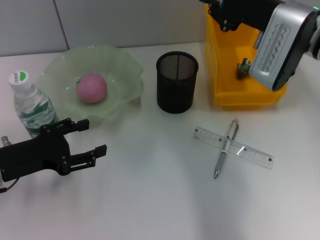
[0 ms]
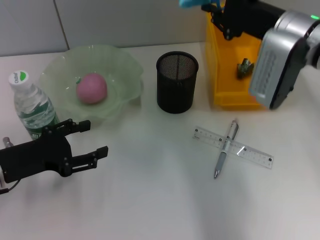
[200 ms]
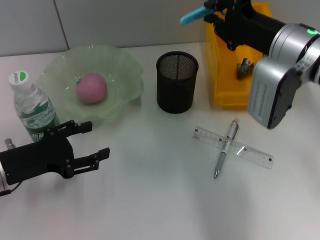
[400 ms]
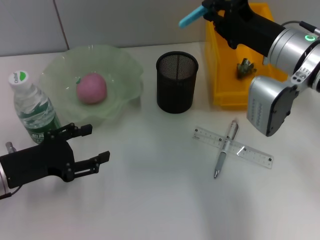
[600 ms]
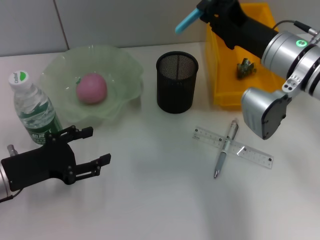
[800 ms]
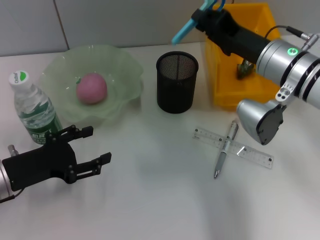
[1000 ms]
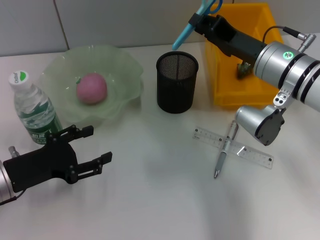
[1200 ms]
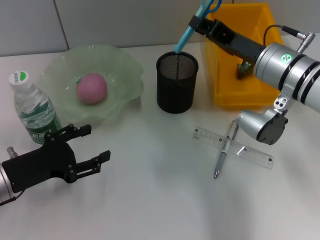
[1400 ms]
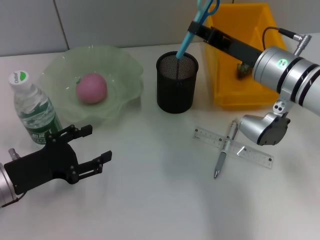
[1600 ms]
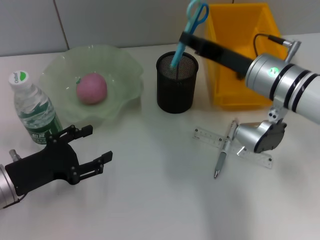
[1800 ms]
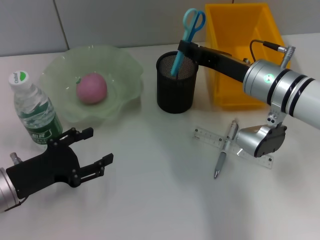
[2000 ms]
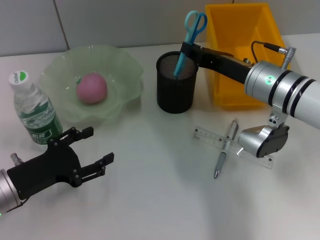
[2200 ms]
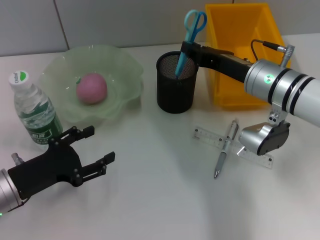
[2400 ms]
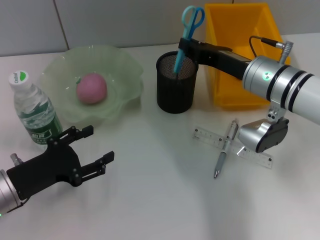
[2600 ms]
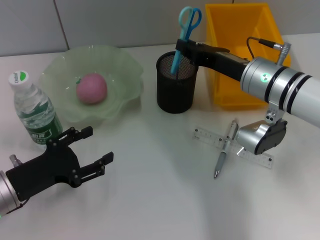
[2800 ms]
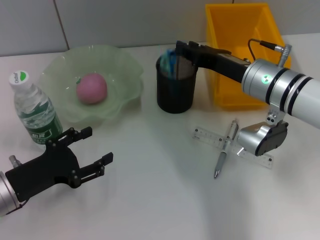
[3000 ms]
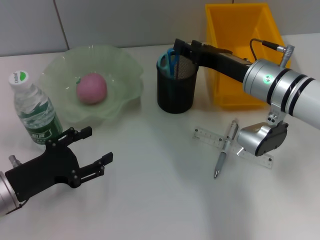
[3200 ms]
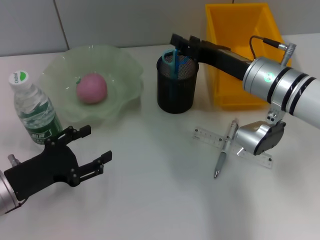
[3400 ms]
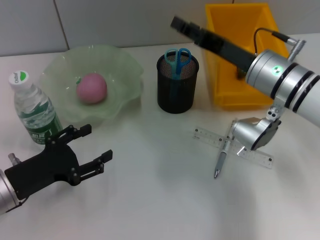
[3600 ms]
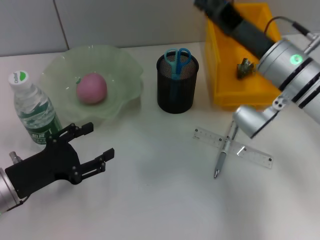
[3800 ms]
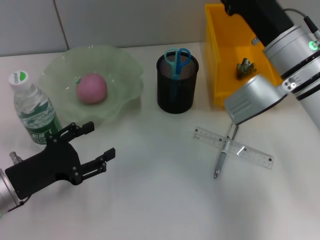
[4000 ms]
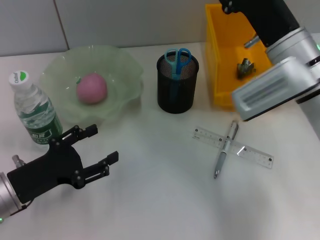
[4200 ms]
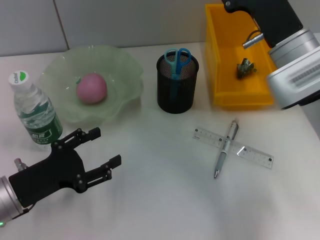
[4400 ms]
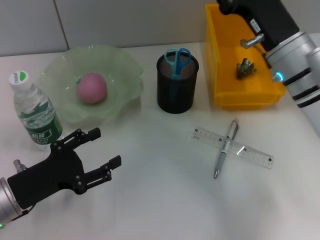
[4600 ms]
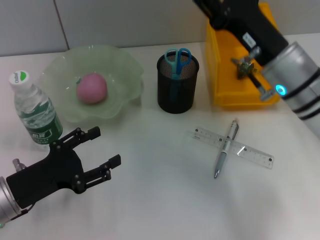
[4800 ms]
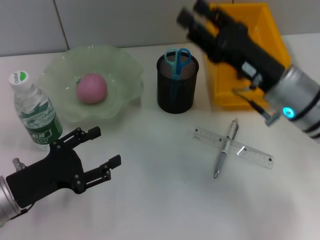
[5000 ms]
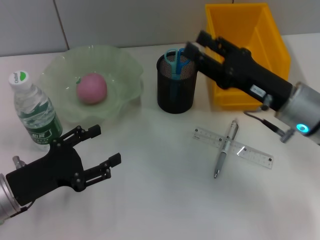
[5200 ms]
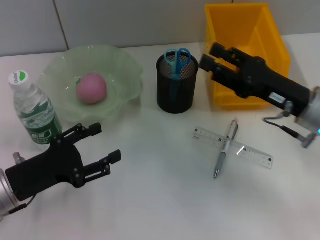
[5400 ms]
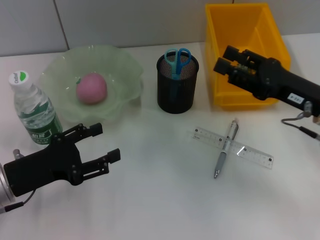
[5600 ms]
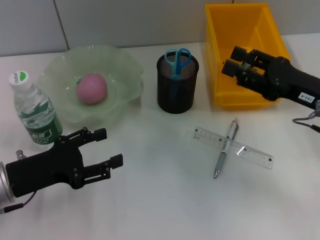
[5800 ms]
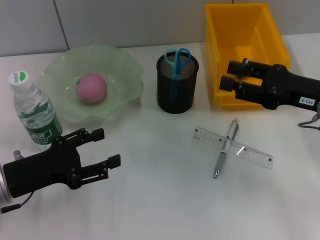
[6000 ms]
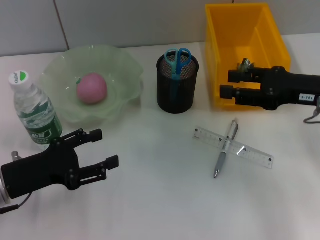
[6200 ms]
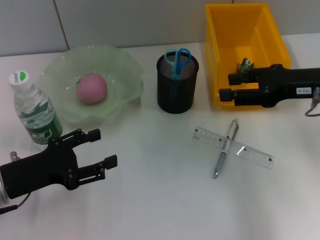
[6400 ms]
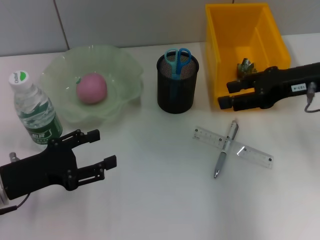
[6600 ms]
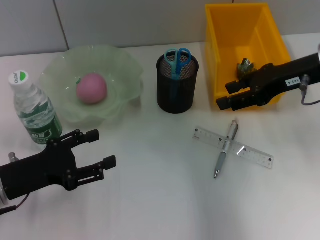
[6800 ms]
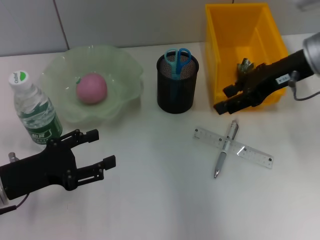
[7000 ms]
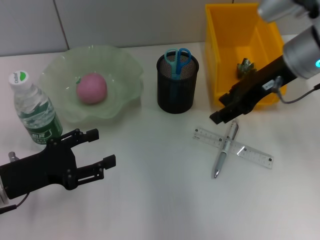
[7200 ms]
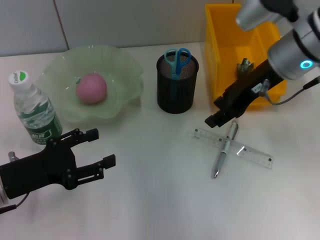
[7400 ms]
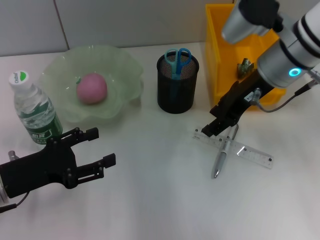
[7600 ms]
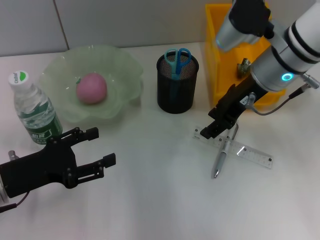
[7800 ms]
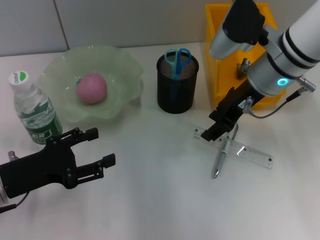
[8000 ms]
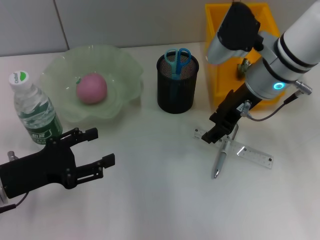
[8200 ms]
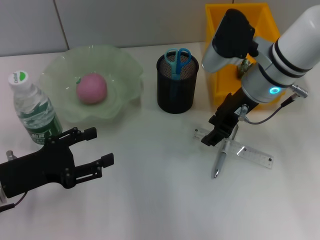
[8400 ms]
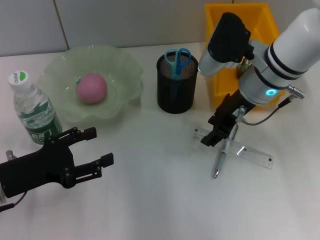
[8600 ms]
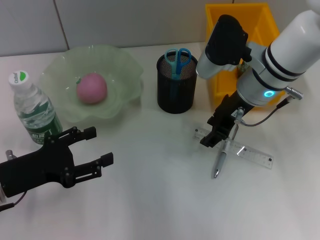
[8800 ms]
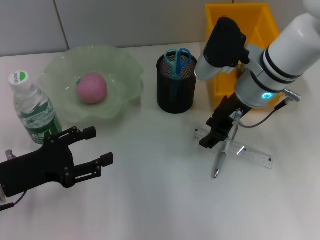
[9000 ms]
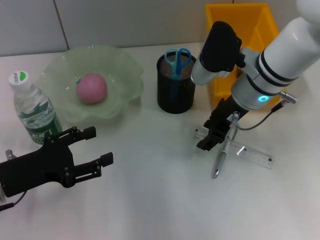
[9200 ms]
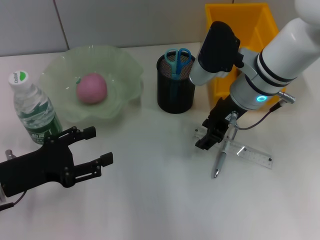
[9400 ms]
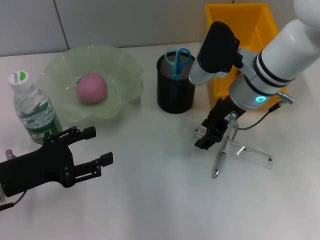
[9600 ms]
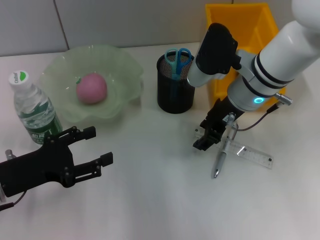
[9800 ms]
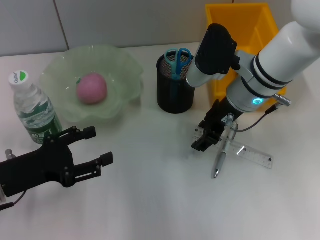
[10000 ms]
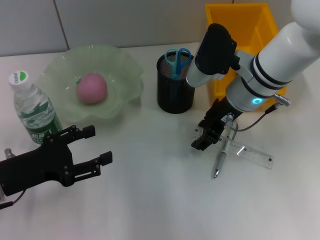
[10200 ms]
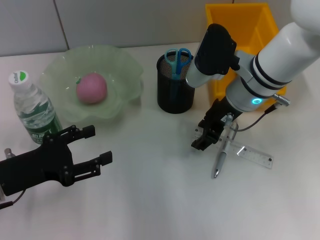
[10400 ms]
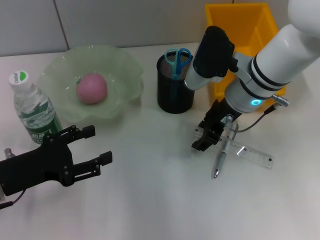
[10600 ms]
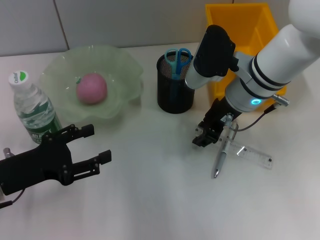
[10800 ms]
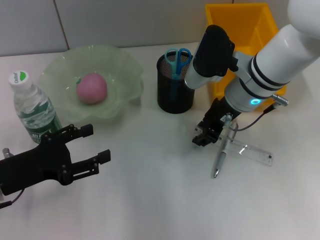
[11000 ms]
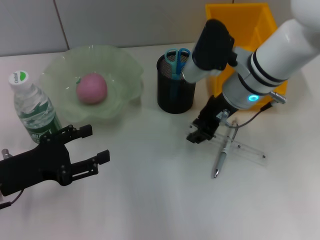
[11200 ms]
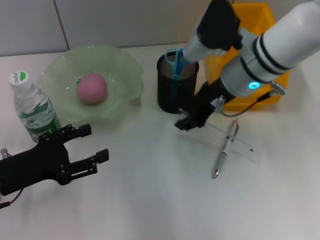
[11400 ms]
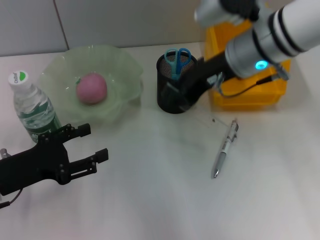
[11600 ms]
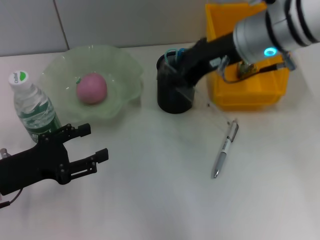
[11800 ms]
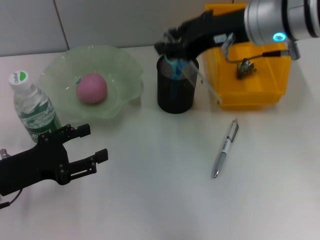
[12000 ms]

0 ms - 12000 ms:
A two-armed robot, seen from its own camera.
Step, 0 ms - 3000 ms: Place the blue scissors into the pen holder with the right hand.
Step, 3200 ms - 10000 ms: Grab the ruler with the right hand.
0 ms - 1600 ms: The right gripper heads downward, covering some 5 cm.
1600 ms - 3000 ms: The grippers move only a little.
3000 ms - 4400 ms: The right gripper opens up.
4400 ms - 6000 ms: The right gripper heads to the right, covering roughly 10 cm.
6000 ms - 7600 ms: The right gripper moves to the left, forward and upward, some 15 cm.
7600 ms - 9000 ms: The right gripper changes place by some 5 cm.
9000 ms - 10400 ms: The grippers stay close to where they were, moving slightly.
10400 ms - 12000 ms: The right gripper travels upward by about 10 cm.

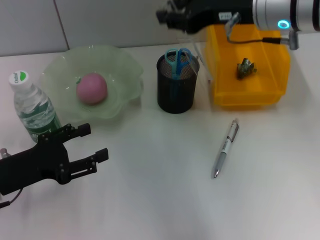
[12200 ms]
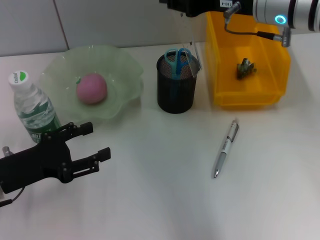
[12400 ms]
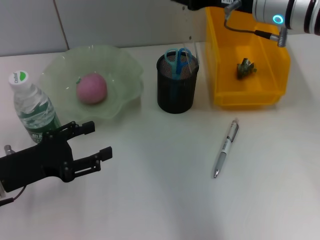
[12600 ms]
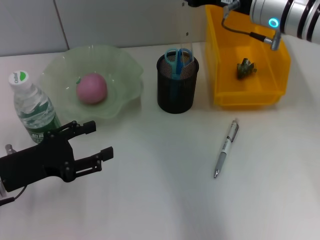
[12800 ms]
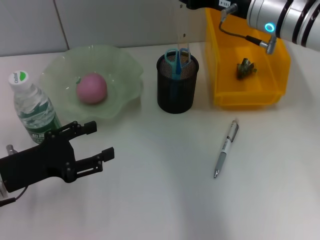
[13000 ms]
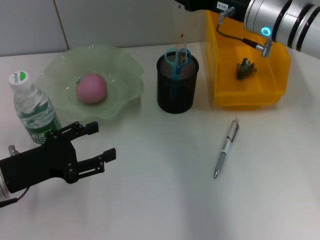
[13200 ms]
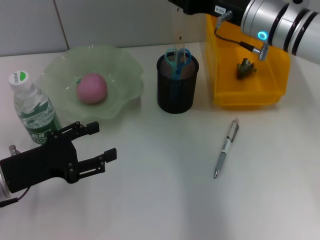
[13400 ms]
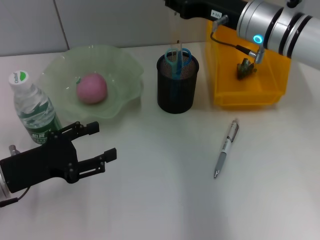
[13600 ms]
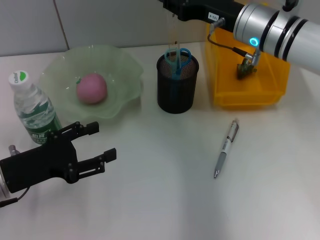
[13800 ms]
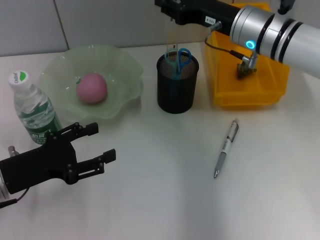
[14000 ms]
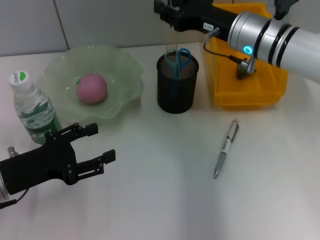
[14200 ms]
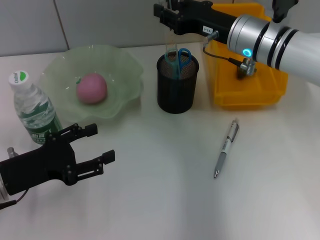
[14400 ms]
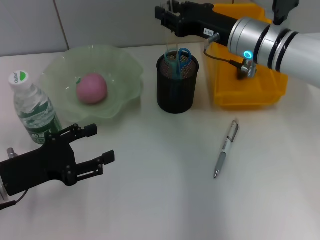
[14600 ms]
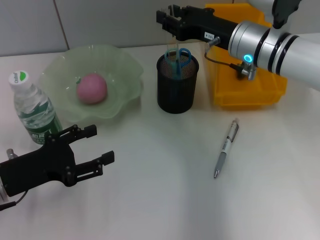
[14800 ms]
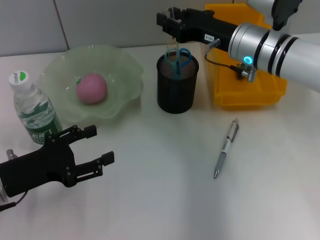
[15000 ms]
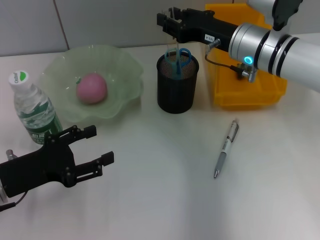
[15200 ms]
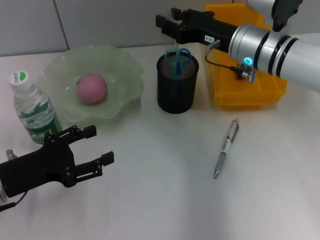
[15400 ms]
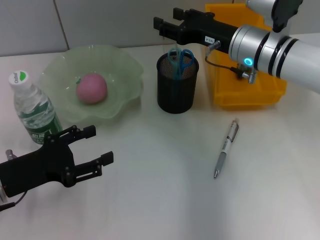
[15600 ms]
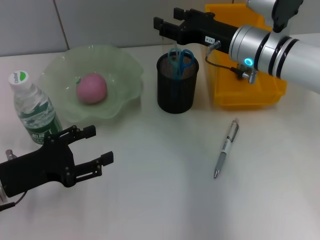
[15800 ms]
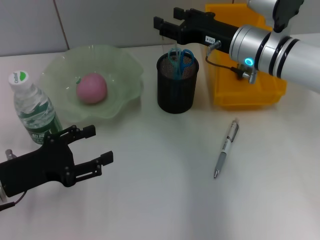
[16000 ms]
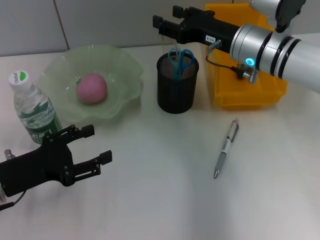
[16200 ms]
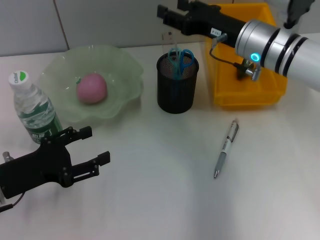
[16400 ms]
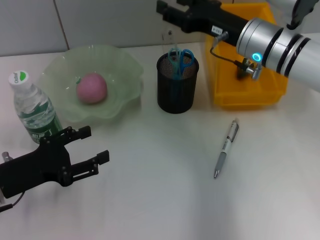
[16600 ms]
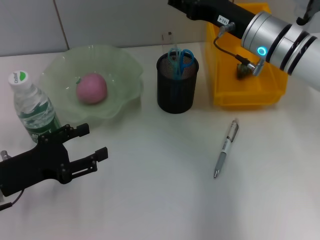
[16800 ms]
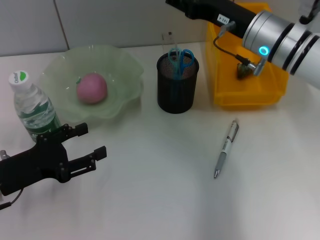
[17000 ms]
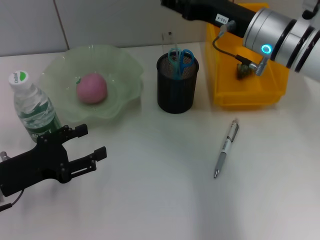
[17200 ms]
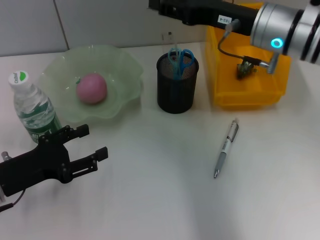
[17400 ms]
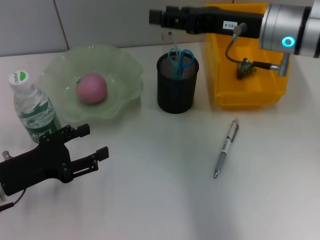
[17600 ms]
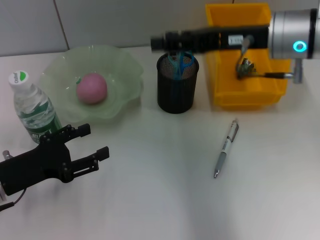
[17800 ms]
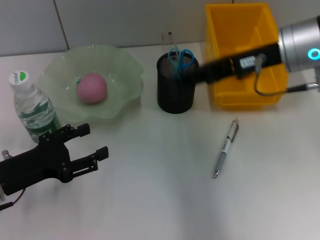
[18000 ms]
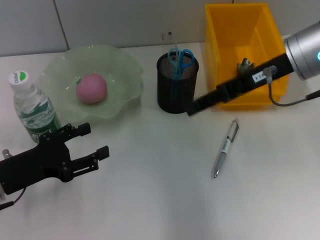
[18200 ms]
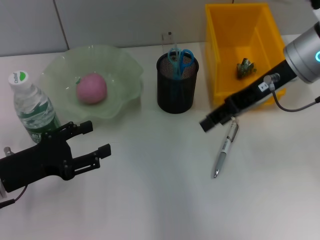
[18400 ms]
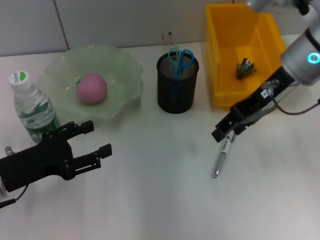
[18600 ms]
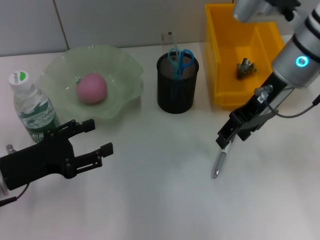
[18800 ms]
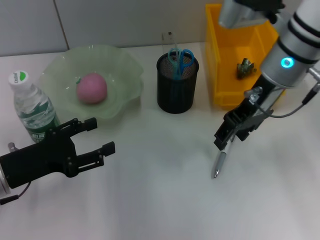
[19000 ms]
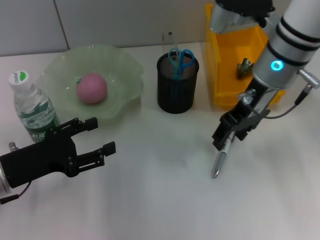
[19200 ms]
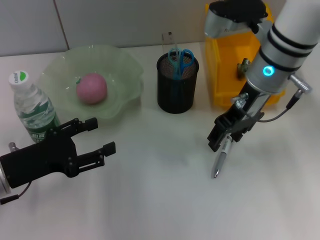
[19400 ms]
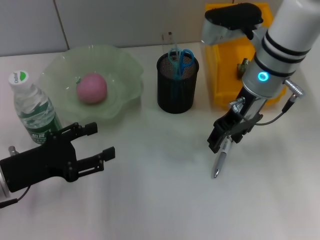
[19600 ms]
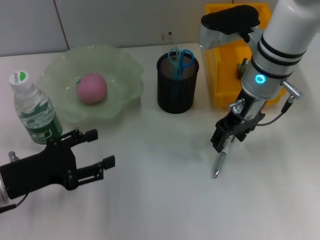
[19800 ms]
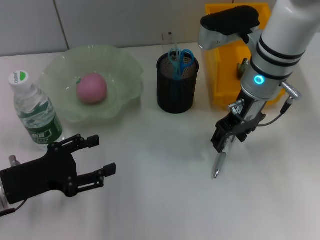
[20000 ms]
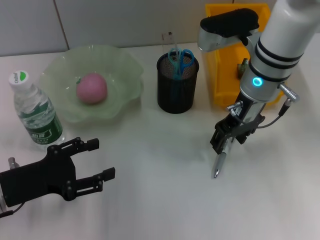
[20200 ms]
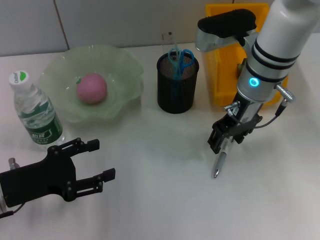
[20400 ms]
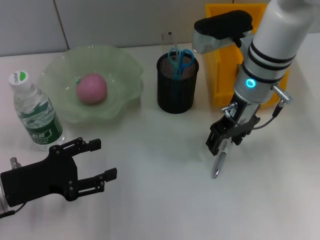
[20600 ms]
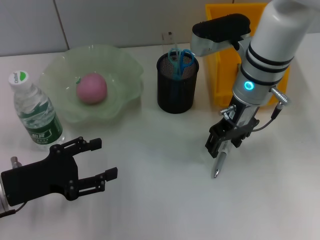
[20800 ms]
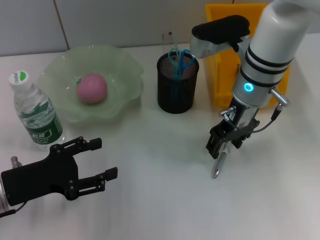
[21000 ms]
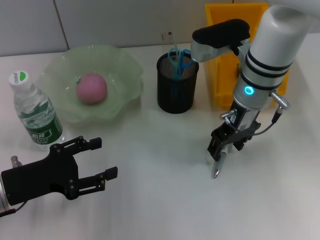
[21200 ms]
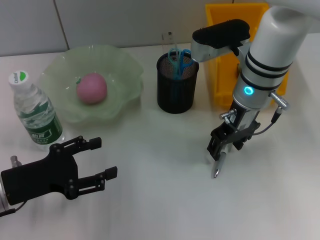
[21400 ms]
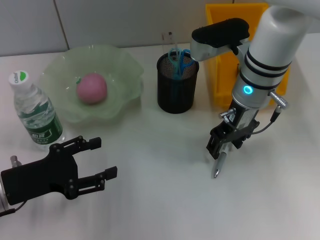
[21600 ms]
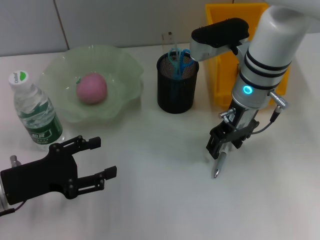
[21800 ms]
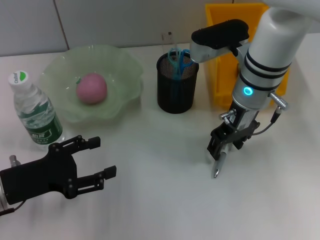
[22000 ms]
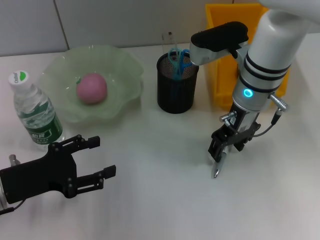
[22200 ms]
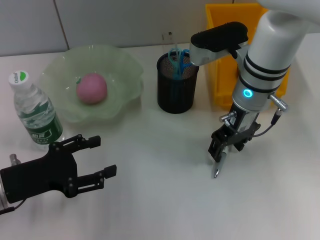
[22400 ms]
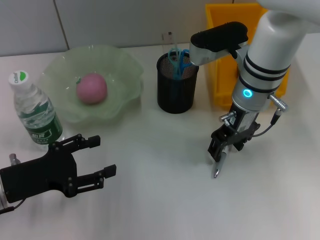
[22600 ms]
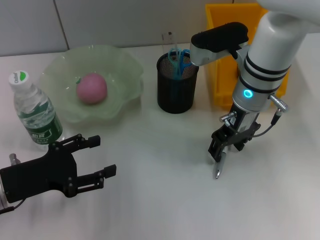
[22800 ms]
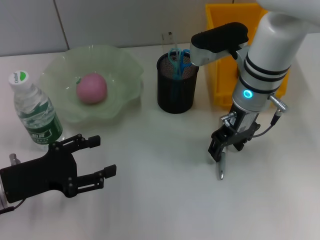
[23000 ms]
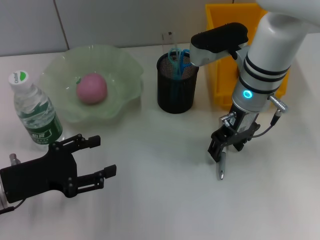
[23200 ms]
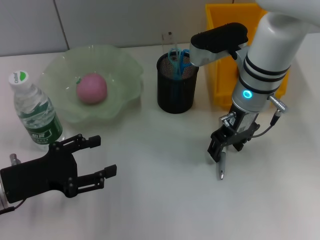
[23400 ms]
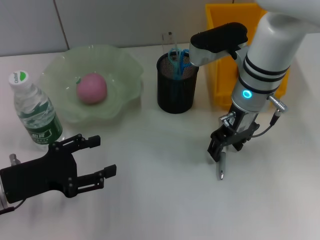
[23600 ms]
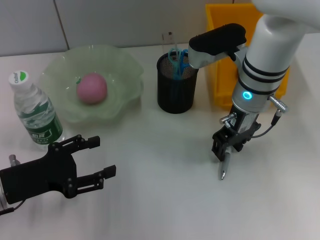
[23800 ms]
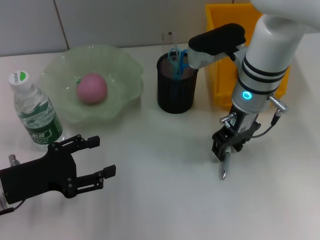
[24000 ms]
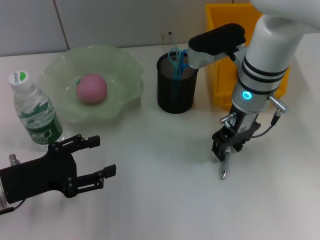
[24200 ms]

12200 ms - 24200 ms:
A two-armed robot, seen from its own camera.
Step, 12200 ms - 15400 ms: Place the ruler into the pen holder with the right hand.
12200 ms - 13800 ms: The right gripper travels downward by some 10 cm.
13800 ms - 16600 ms: The grippers make only small movements.
16600 ms - 18200 ms: The right gripper moves upward, some 10 cm.
18200 ms - 19800 ms: The right gripper moves to the left and downward, roughly 10 cm.
19800 ms - 21200 ms: The grippers make only small movements.
21200 ms - 24200 ms: Neither gripper changes place.
